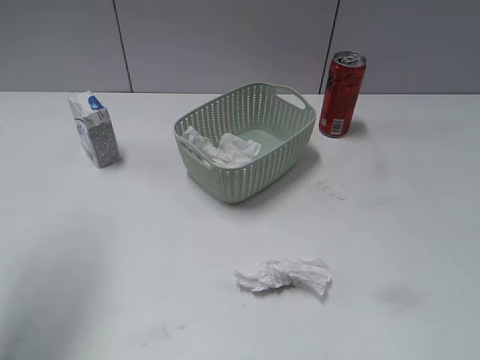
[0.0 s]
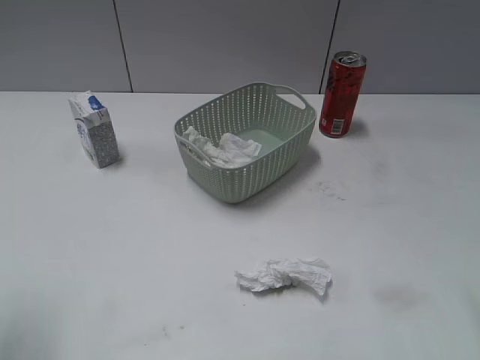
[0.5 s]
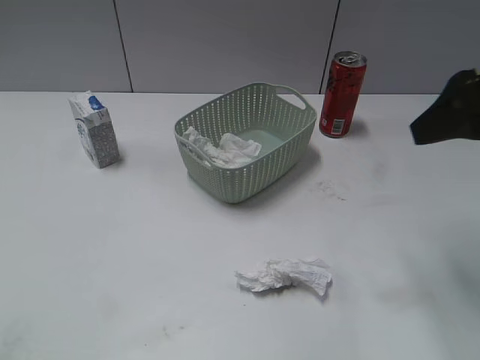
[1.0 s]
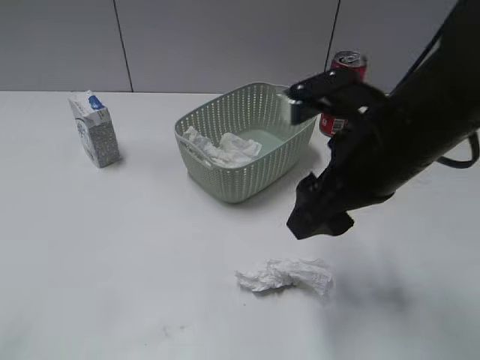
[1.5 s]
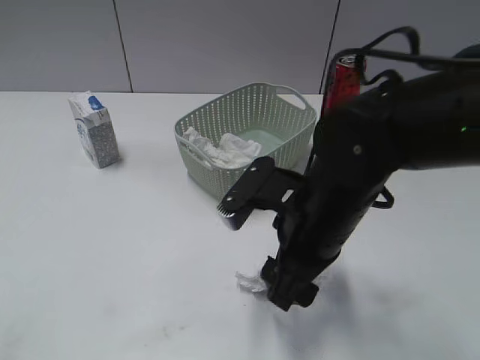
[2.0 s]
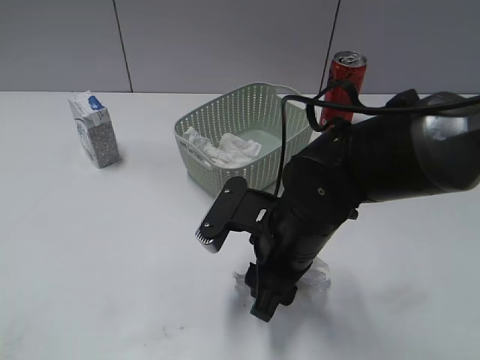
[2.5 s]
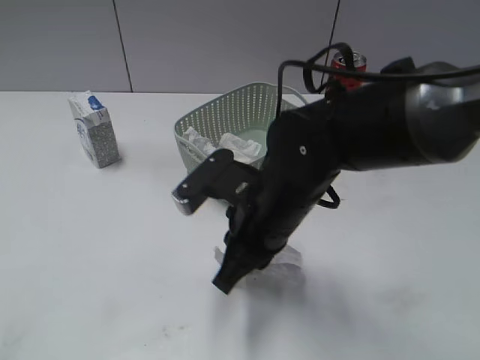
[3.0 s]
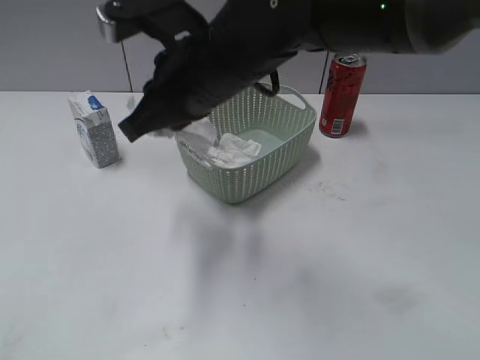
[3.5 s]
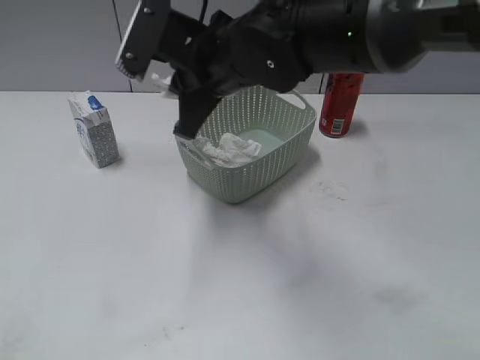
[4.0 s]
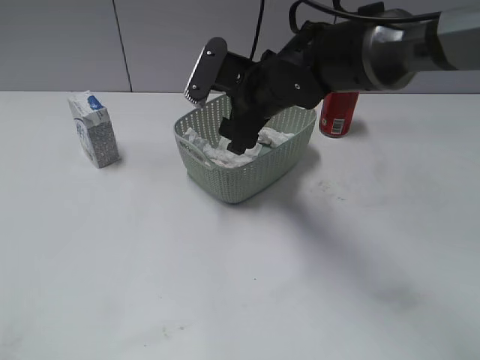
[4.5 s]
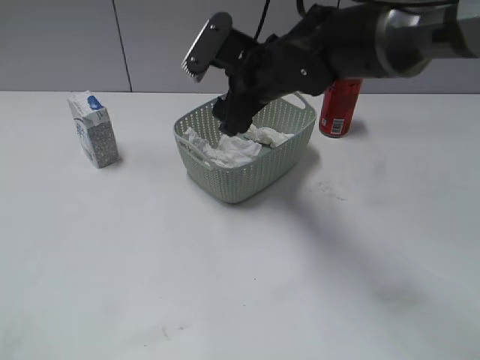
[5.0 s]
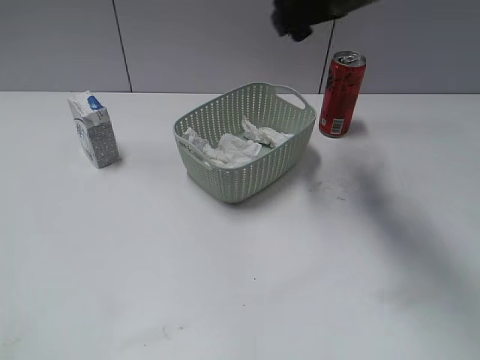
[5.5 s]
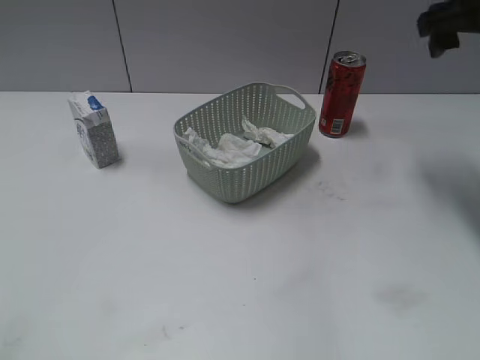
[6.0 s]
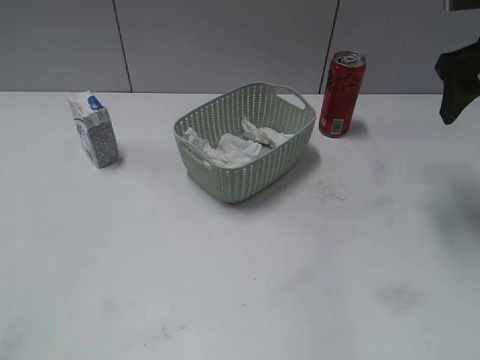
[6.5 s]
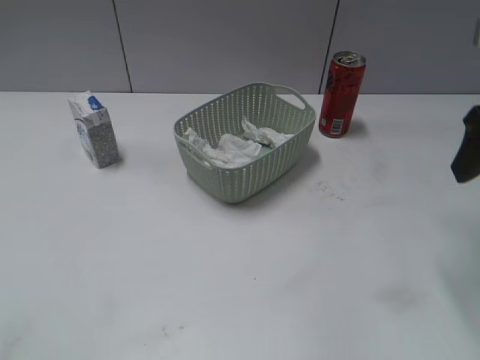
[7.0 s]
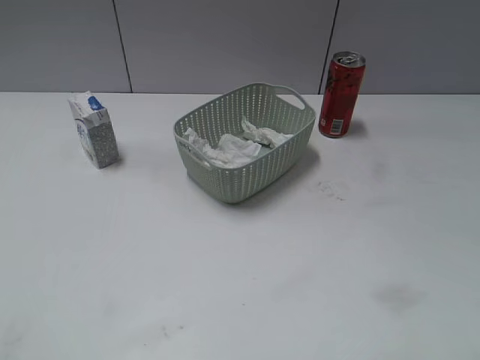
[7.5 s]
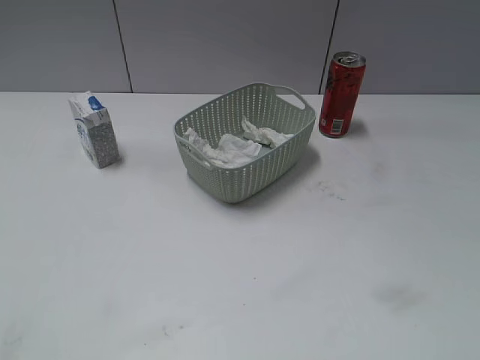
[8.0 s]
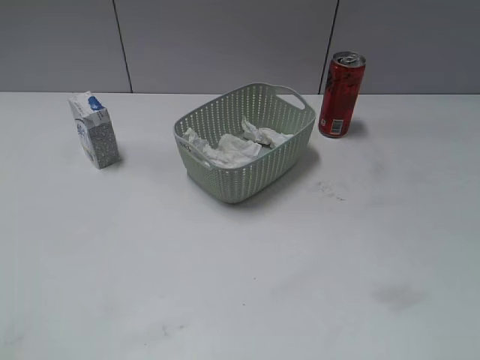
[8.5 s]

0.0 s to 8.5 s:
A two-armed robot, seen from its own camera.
Step, 0.0 to 3.0 s: Grasp the waste paper with right gripper.
Step, 3.5 to 5.0 s: Place the waste paper in the basket with right gripper.
0.0 to 2.0 s: The left gripper travels backward by about 25 cm; the right gripper shifts some 30 cm to the left, forward and downward.
2.0 to 4.0 s: The right gripper travels forward, to the left and upward by about 15 cm, and closes its fingers.
4.0 to 6.5 s: The right gripper moves to the right, approximately 30 cm, and opens up.
6.5 to 8.5 s: The right gripper moves backward, some 35 cm.

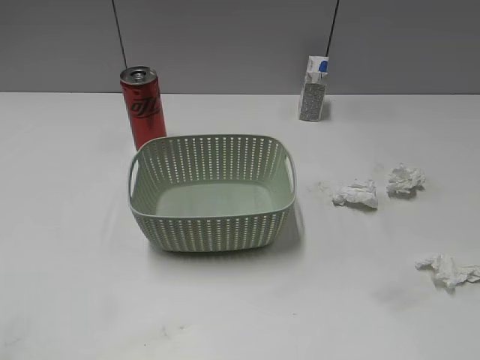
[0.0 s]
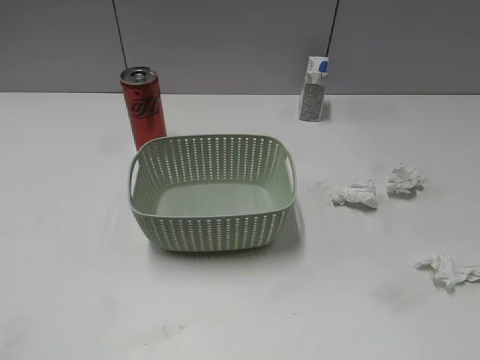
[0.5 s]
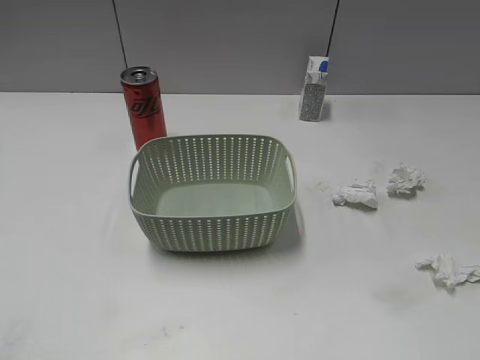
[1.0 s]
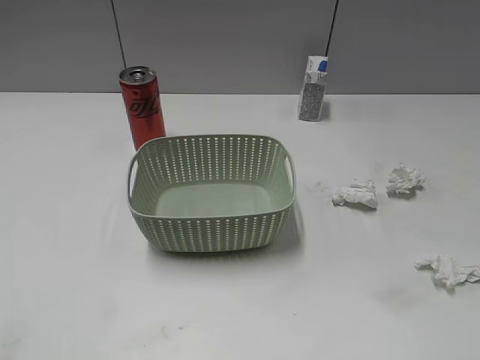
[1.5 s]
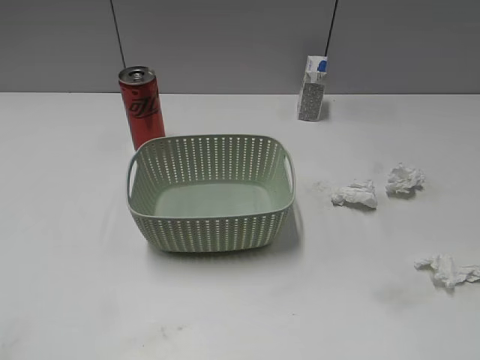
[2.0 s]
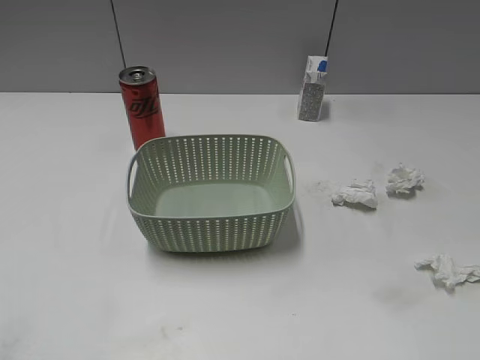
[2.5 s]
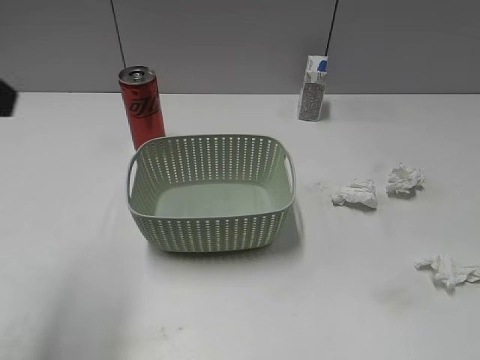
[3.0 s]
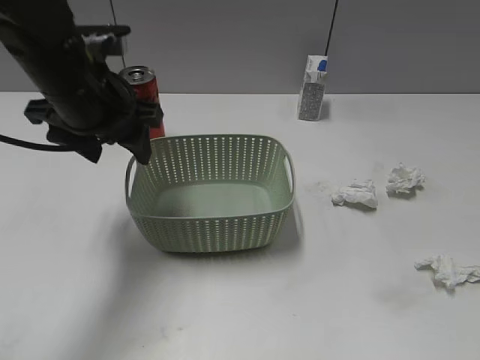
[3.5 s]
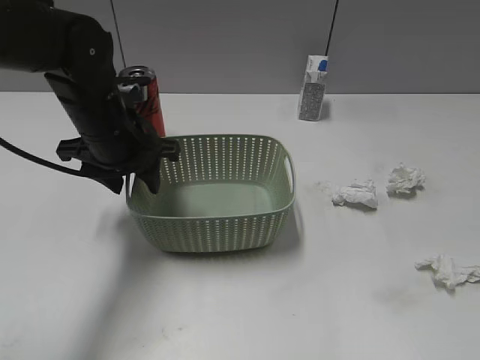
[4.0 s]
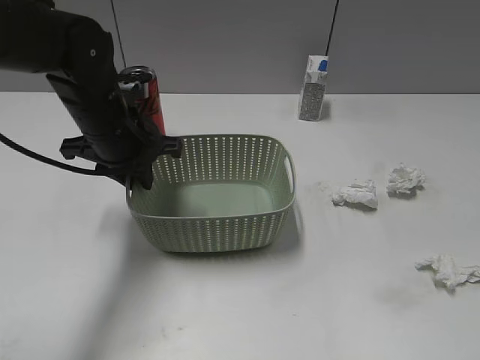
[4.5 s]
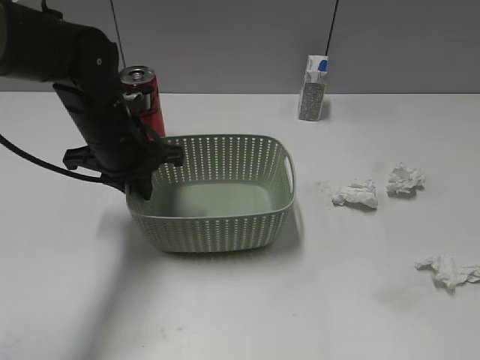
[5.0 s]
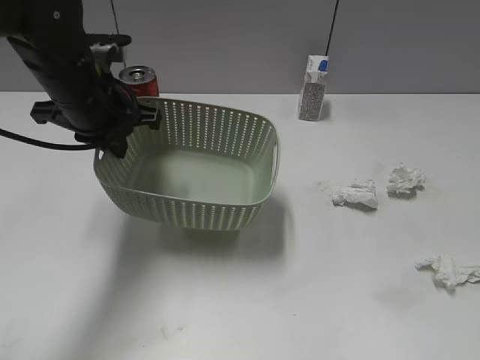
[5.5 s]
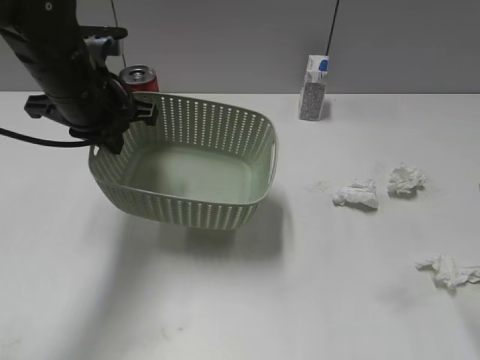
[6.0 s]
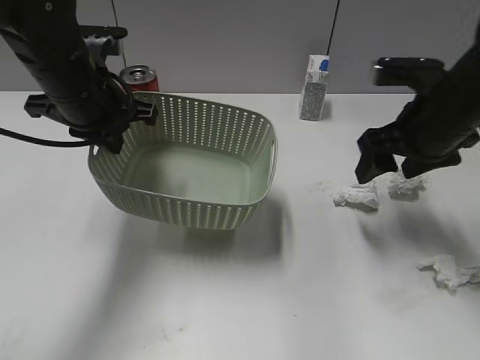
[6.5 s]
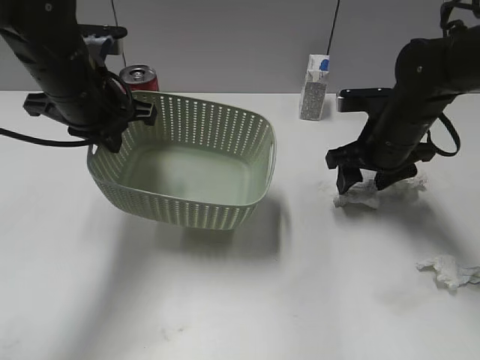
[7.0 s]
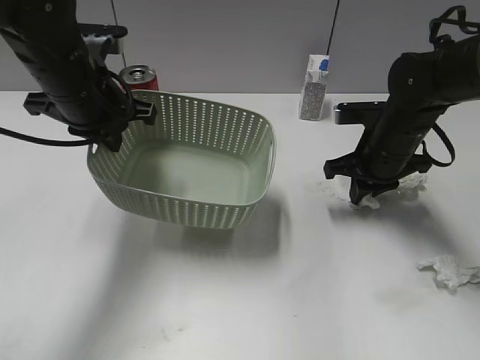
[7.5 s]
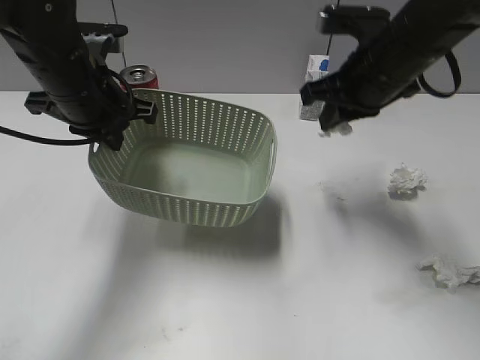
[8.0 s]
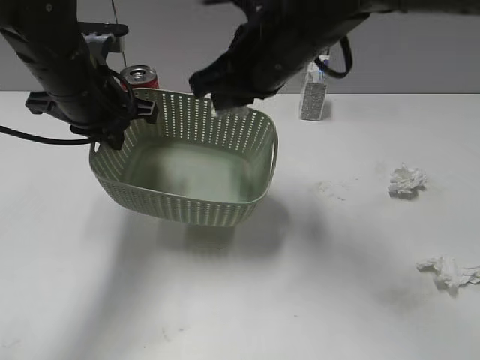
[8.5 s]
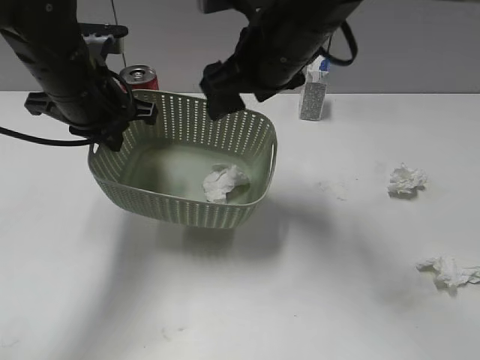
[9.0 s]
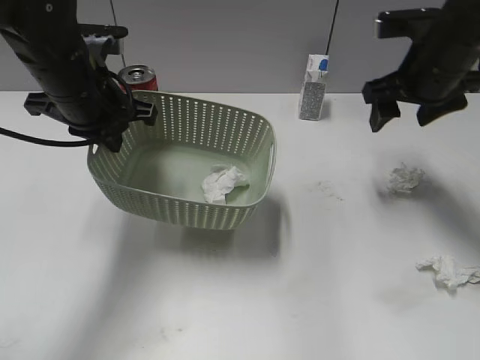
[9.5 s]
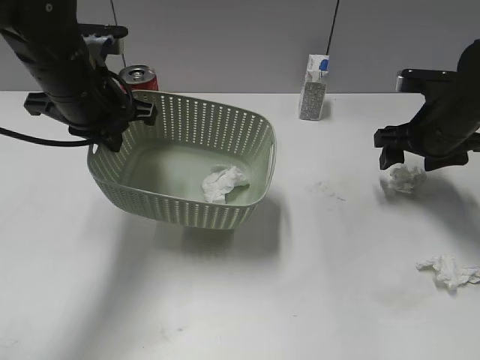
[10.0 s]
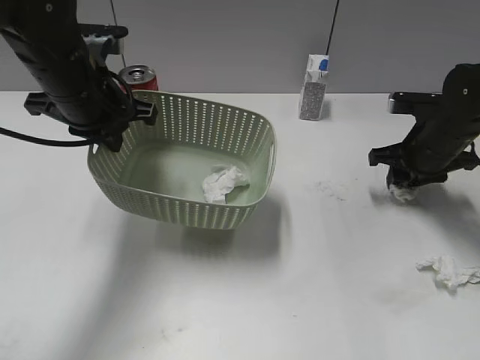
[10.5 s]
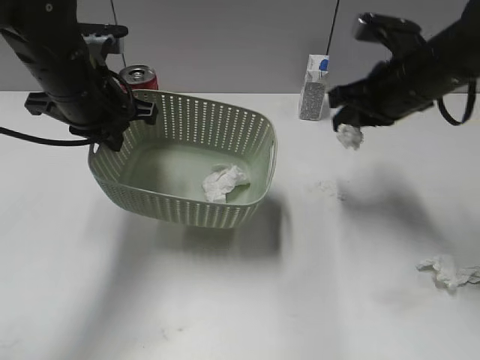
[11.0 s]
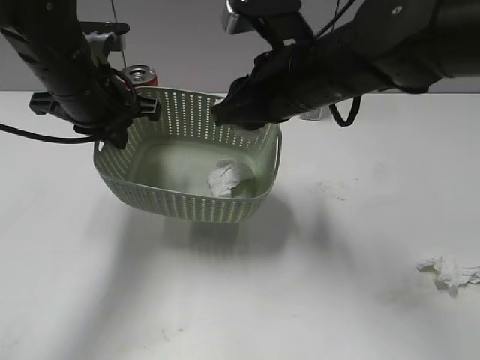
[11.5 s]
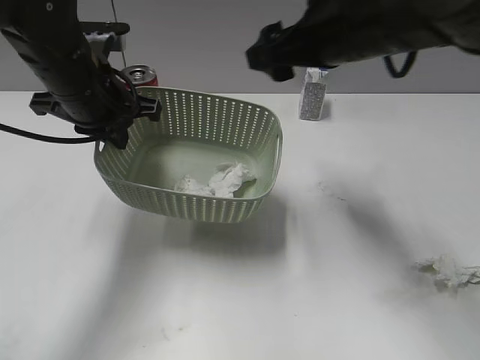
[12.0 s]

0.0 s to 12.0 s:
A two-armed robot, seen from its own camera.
Step, 0.0 to 5.0 s: Grasp the basket with left gripper.
Step, 6.0 to 7.5 s: Grasp the waste paper with right gripper.
Step, 8.0 to 8.5 s: Place the waste paper in the basket with right gripper.
Step, 9.0 to 10.5 s: Grasp the waste paper with right gripper.
Step, 11.0 to 11.5 s: Place the waste paper in the basket with right gripper.
2.0 to 4.0 s: The left gripper shifts roughly 40 cm forward and to the right.
4.0 to 6.0 s: The right gripper travels forward by approximately 15 cm. Meanwhile the left gripper travels upward by some 5 cm, and closes.
6.0 to 8.0 s: The right gripper travels forward and to the left by some 25 cm, and closes up.
8.0 to 10.0 s: The right gripper heads to the right and downward, covering approximately 15 cm, and opens its fingers.
10.0 to 12.0 s: The right gripper goes approximately 20 cm to the left and upward, and closes and opens again.

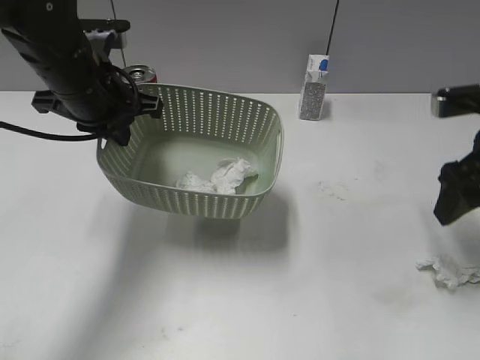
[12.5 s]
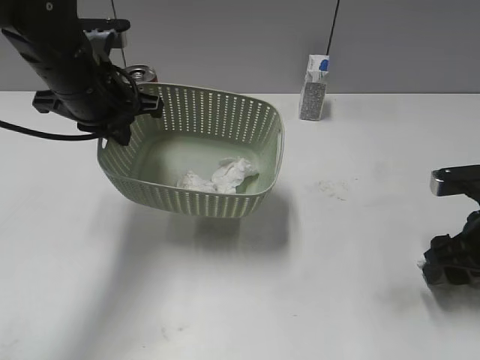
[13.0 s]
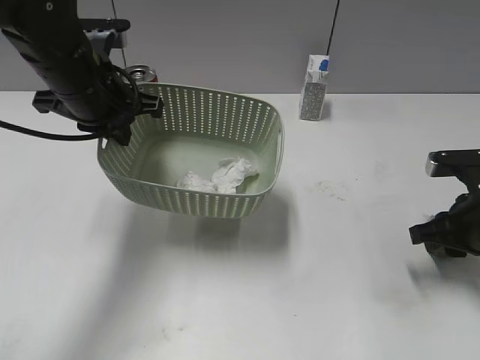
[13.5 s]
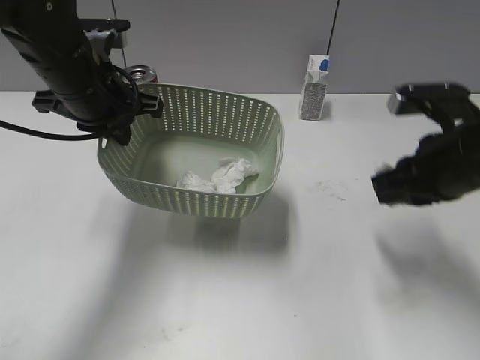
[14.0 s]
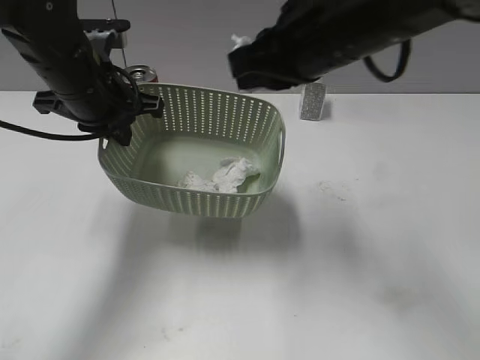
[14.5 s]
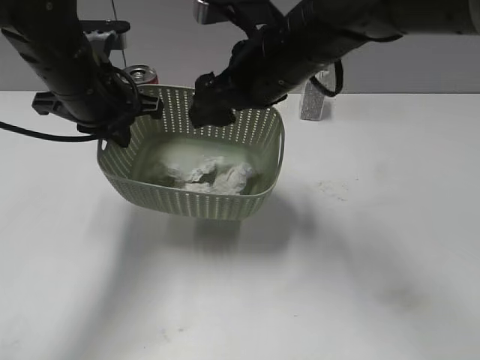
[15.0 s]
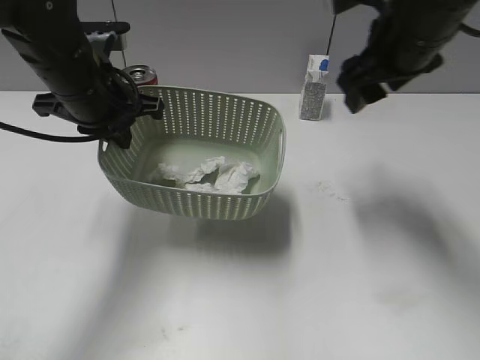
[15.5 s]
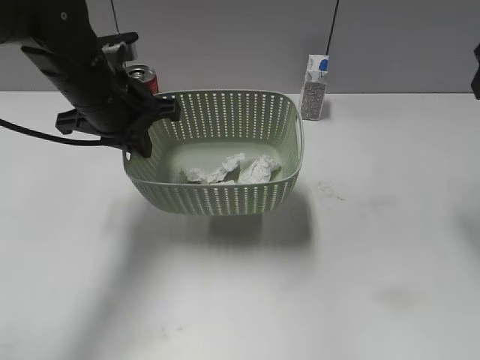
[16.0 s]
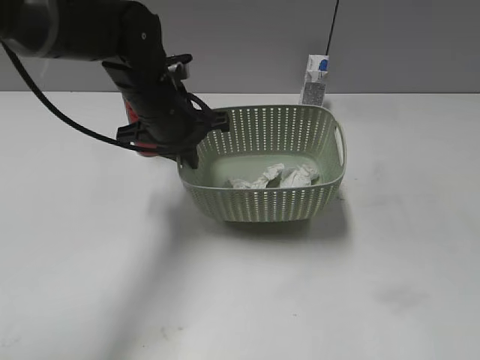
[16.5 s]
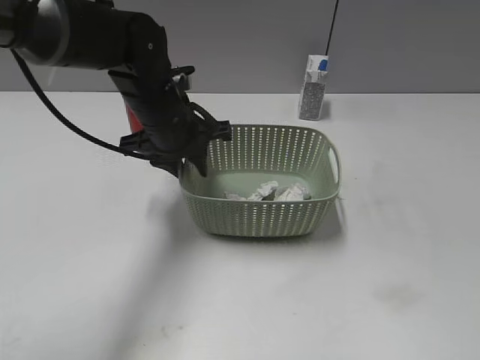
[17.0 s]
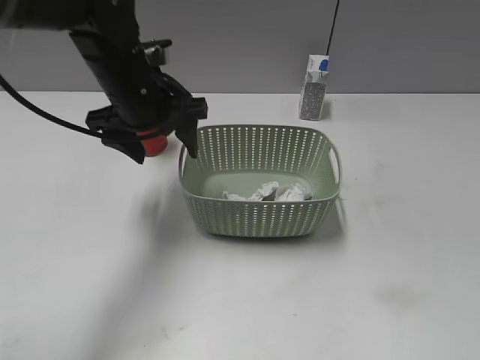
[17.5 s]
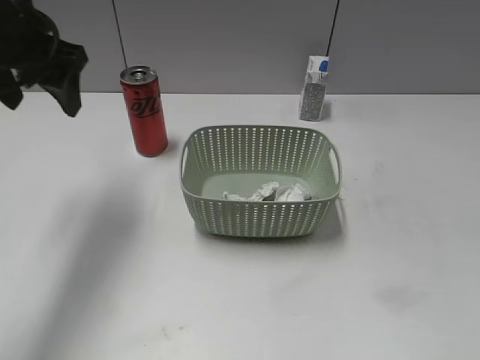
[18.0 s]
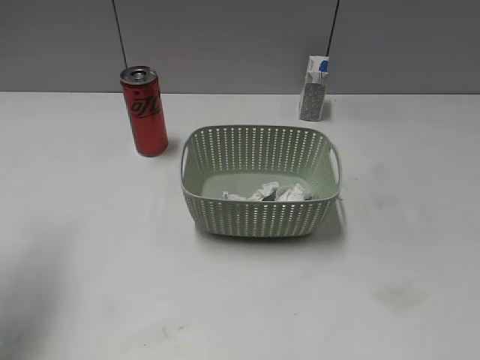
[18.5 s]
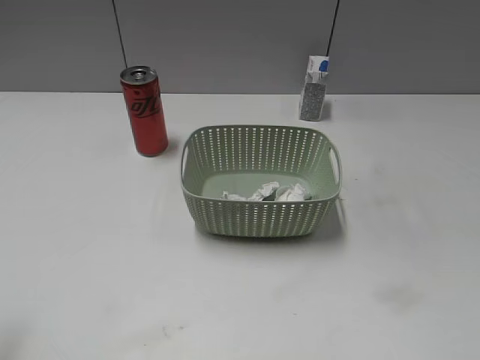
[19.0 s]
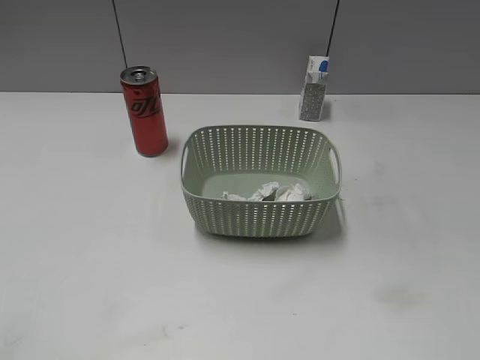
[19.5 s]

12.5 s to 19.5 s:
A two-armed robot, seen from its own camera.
Step, 12.5 to 13.5 s: Grasp the waste paper with right gripper.
Step, 14.0 to 15.0 s: Place the waste paper in the basket with right gripper.
Step, 15.5 to 17.5 s: Place the basket on the table with left gripper.
12.5 to 14.5 s: The right gripper moves to the left and upward, about 20 cm, and closes.
14.5 to 16.0 s: The right gripper shifts some 20 cm to the right, and opens its fingers.
16.0 to 17.5 s: The left gripper opens up, while the right gripper goes roughly 30 cm backward.
17.5 to 19.5 s: The left gripper is displaced backward and to the left by approximately 40 cm.
